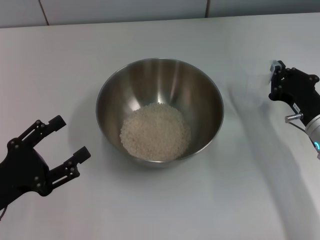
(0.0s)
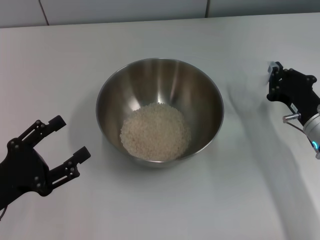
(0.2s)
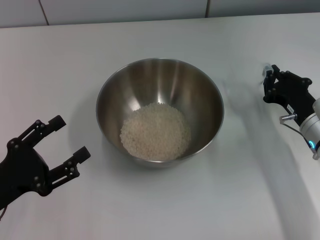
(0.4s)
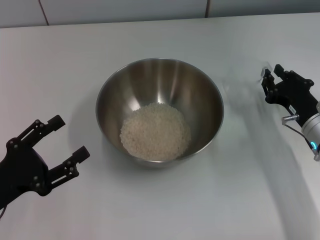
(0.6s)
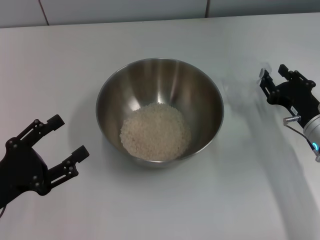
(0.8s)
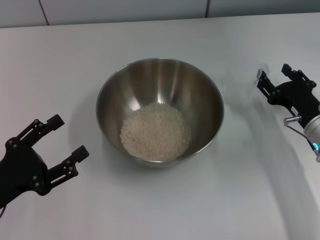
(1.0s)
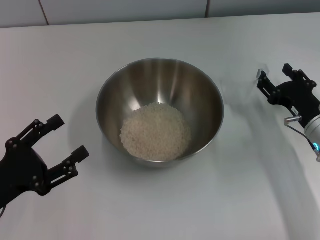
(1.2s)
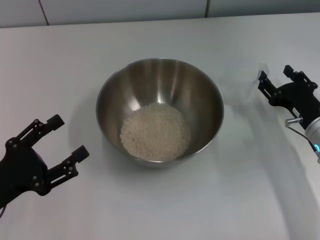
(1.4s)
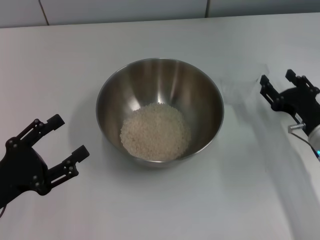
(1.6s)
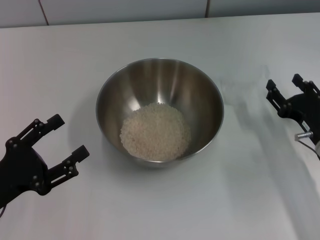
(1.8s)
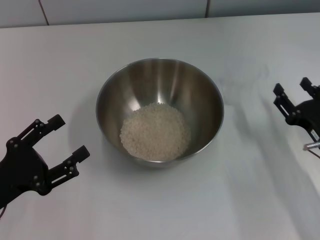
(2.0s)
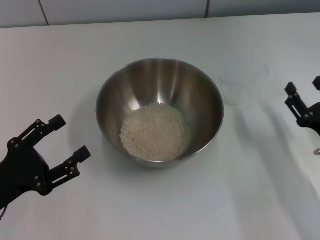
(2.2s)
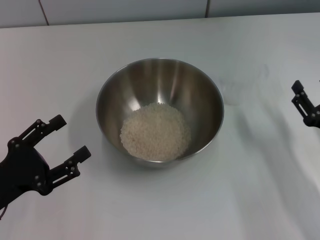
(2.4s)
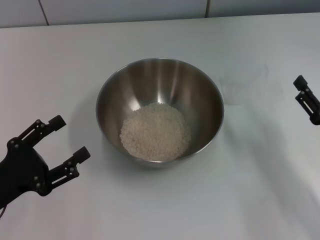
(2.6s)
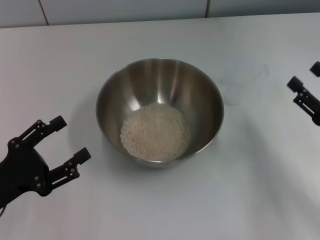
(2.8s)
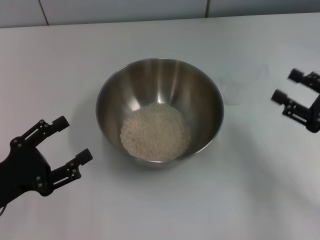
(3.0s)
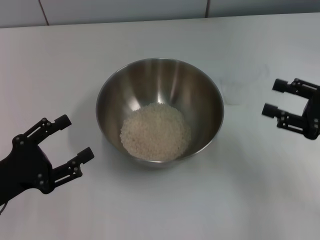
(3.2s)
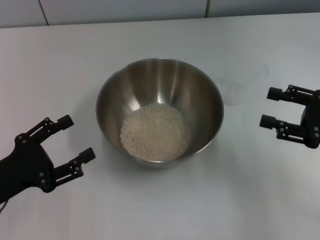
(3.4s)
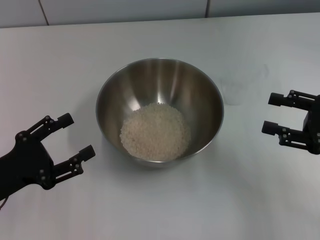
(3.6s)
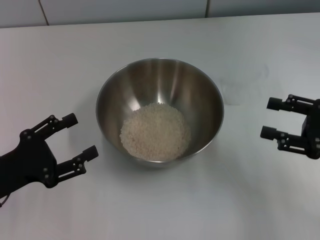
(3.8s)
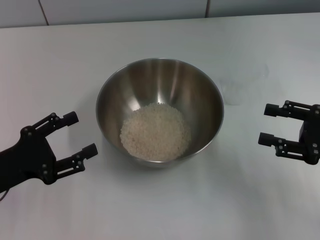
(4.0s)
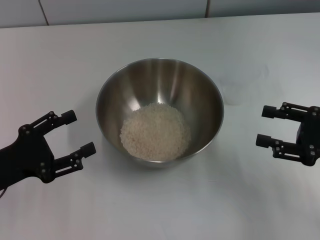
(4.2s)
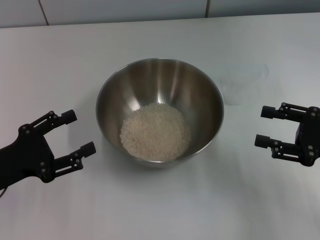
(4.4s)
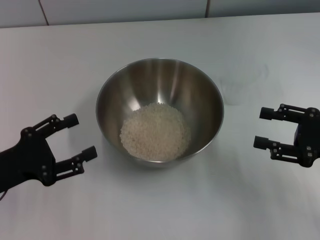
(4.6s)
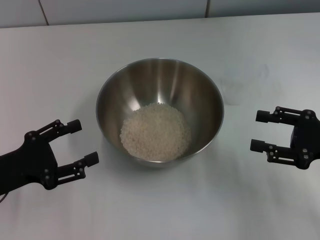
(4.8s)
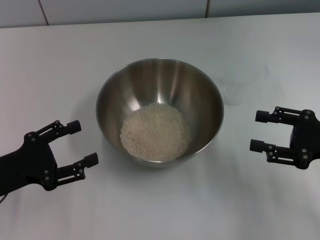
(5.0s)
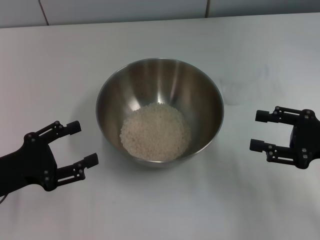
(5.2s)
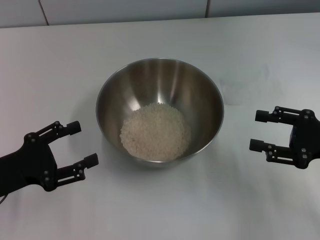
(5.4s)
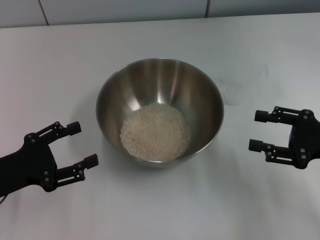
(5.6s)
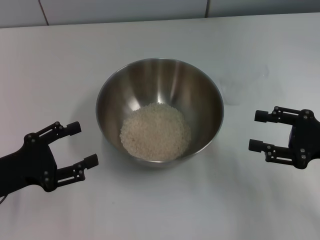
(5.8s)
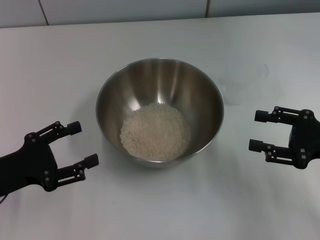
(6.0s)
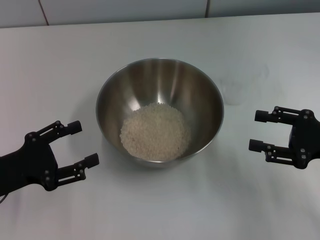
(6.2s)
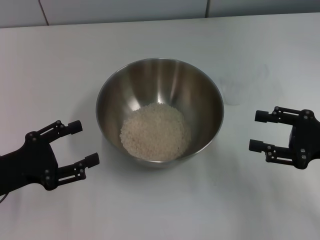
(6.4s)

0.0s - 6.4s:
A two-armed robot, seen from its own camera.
Task of the whole recording: Place the bowl in the middle of the table with one hand and pour the rice from the grain cup into it with the other hand.
0.0s - 1.6s: The right gripper opens.
1.6s - 3.2s: The right gripper moves upward and to the right, roughly 10 cm.
3.2s - 4.8s: The grippers move only a little.
4.8s - 6.4s: Both grippers stay put.

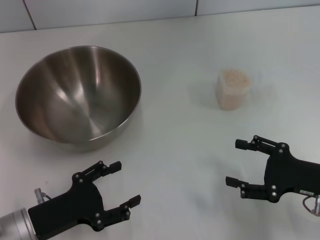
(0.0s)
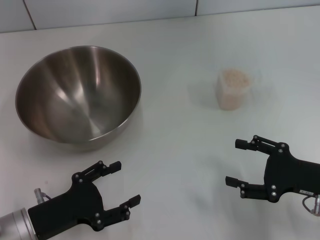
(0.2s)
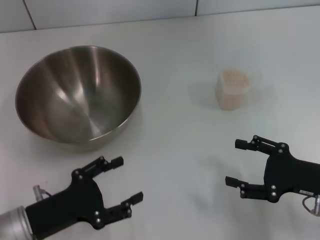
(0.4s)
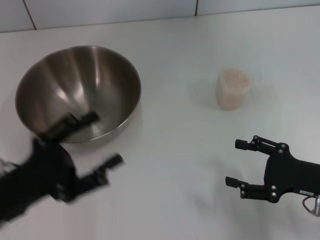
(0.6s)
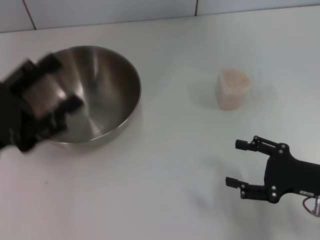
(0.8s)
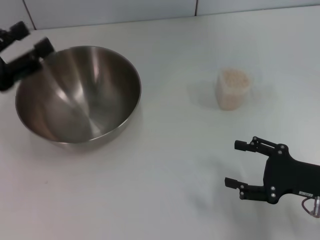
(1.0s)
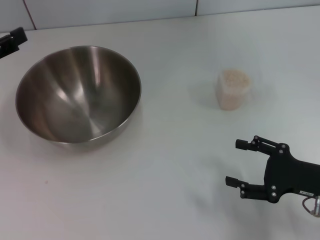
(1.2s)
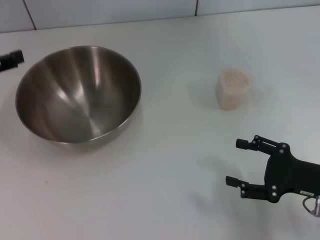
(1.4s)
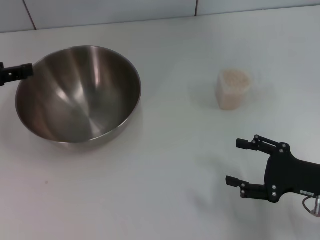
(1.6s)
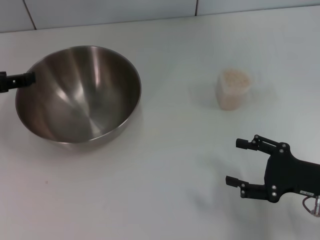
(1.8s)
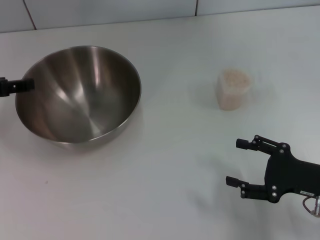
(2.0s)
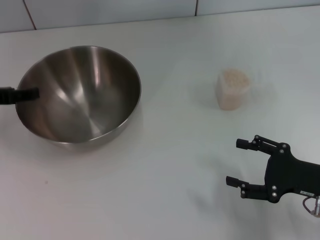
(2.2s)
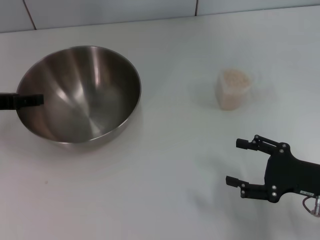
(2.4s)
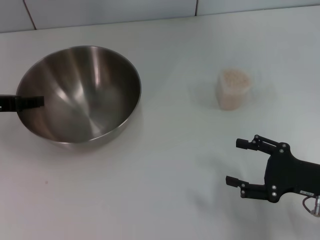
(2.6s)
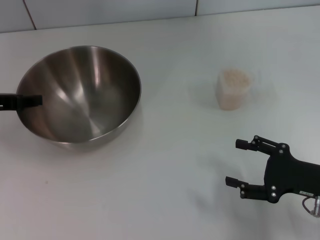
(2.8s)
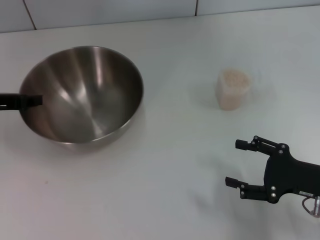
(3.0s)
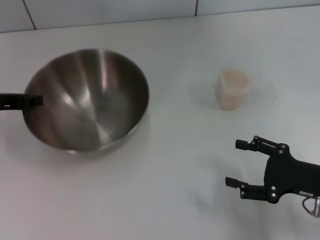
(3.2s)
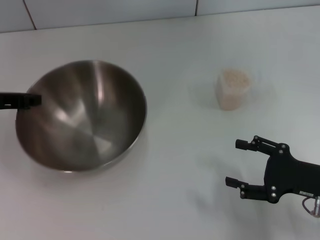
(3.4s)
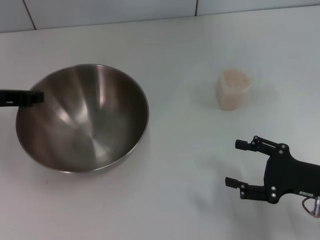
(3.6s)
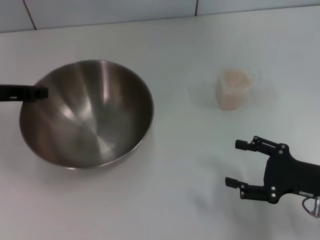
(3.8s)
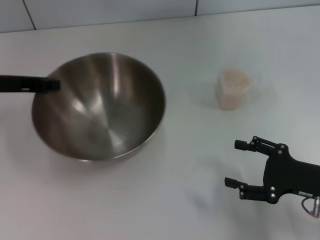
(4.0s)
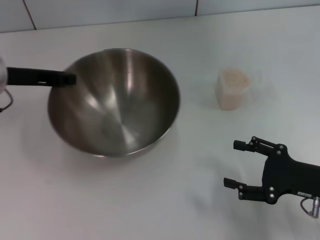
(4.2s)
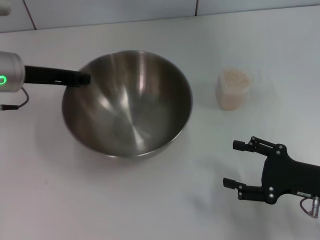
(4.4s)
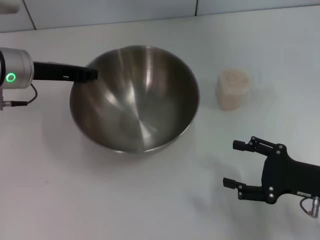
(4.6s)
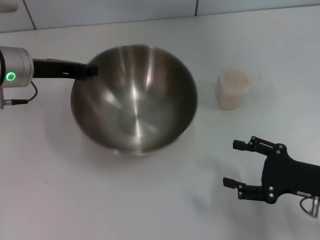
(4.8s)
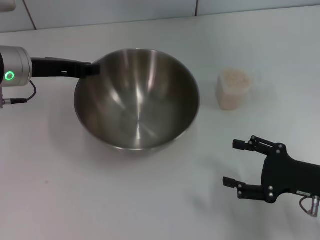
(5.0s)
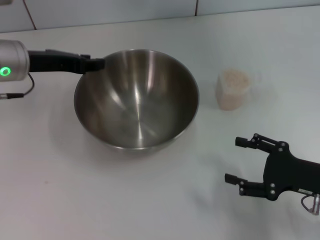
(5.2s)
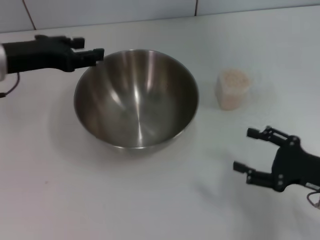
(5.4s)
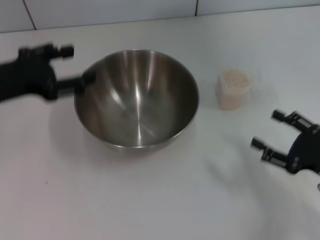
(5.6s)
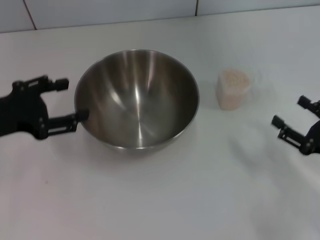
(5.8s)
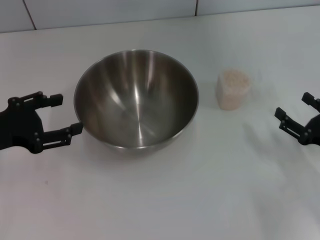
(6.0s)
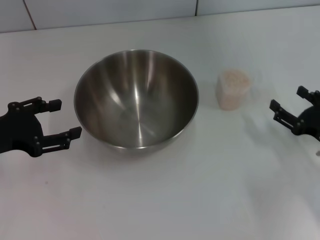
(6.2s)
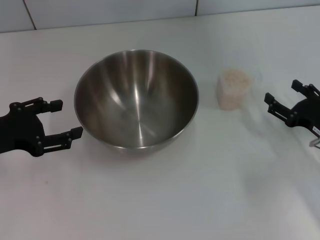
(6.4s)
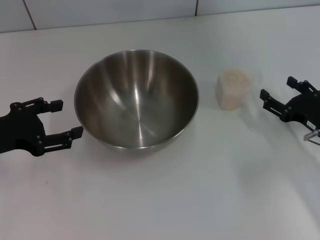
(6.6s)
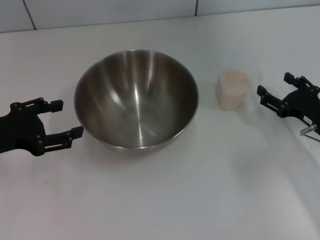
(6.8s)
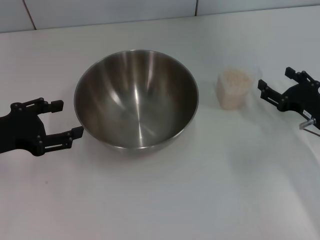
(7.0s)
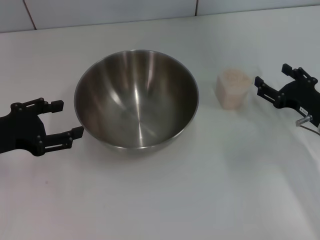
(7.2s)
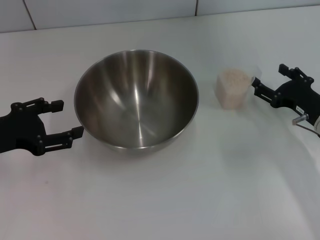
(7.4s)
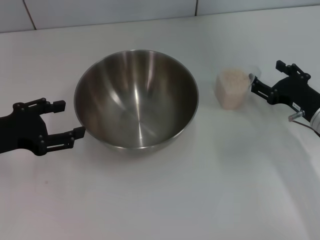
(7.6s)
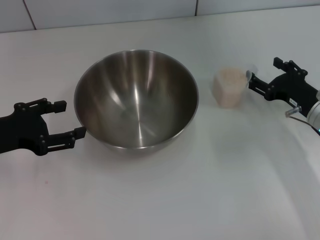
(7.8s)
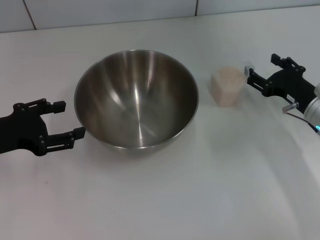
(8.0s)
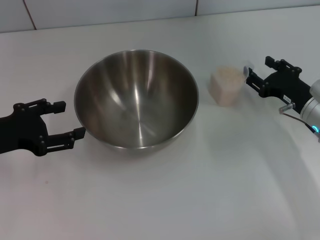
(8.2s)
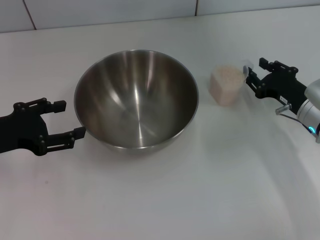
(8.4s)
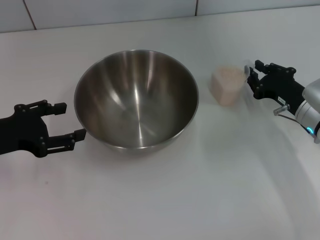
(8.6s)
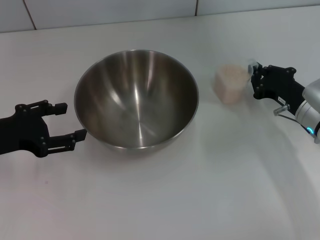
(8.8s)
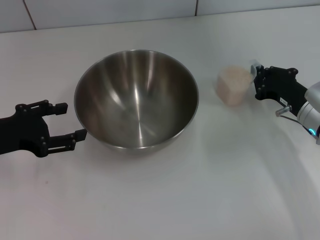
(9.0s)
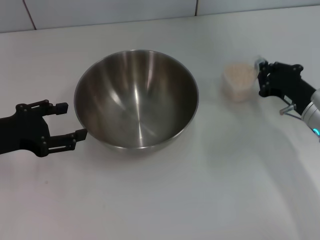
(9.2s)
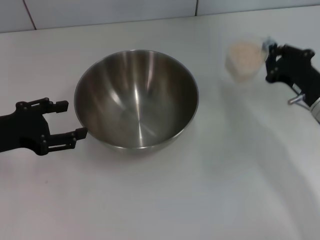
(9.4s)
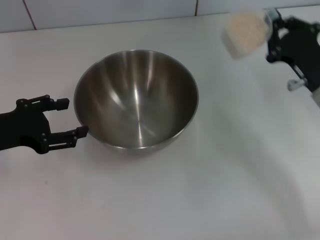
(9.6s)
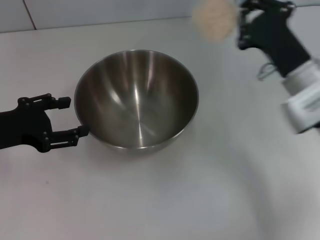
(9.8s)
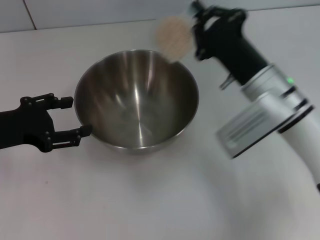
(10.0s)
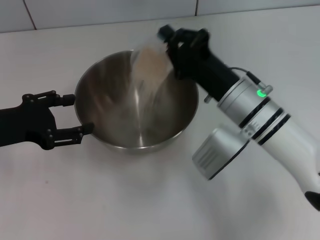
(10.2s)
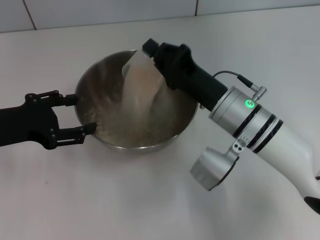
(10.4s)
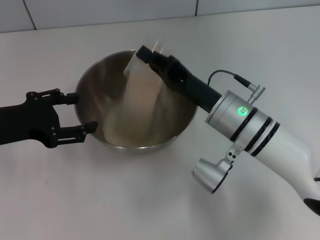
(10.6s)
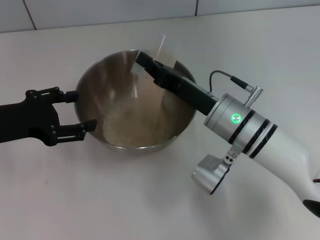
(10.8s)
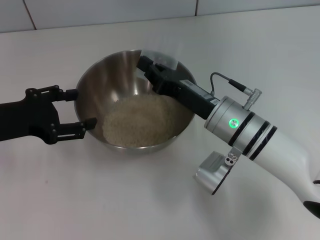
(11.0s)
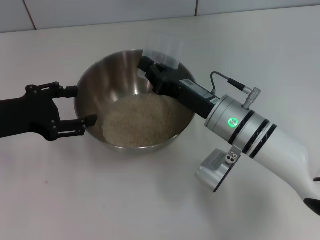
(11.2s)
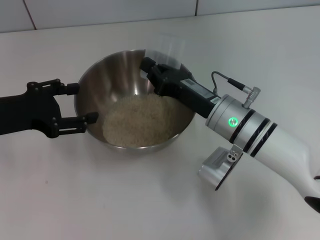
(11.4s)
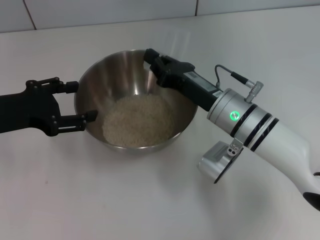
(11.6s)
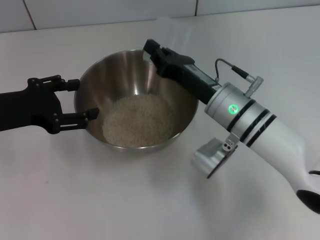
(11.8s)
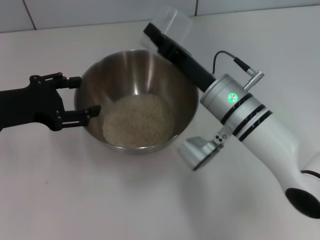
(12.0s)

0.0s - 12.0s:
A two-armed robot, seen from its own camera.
Task of the whole recording: Place the bowl in the middle of the table with one hand and pour the rice from the grain cup into it with the other hand.
Step, 0.0s - 3.4s: Pick up the bowl with the left gripper.
Step, 3.8s - 5.6s: Place the bowl in the center of view with the left gripper.
Step, 5.8s - 9.4s: Pick up the cup with rice in it with the right gripper.
0.0s - 1.6s: The left gripper moves upward, forward and to the left, about 20 cm.
1.6s - 3.0s: The left gripper ends up some 5 cm from where it was, and closes.
3.0s - 4.4s: The left gripper travels to the right by some 5 cm, and closes its fingers.
4.4s - 6.0s: The left gripper shifts approximately 15 cm backward and to the left, and opens up.
6.0s - 7.6s: The right gripper travels forward by approximately 10 cm.
7.6s - 9.0s: The right gripper closes up.
9.0s - 10.4s: The right gripper shifts some 15 cm to the left.

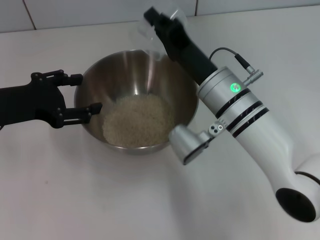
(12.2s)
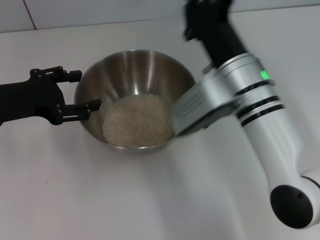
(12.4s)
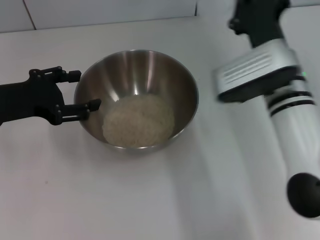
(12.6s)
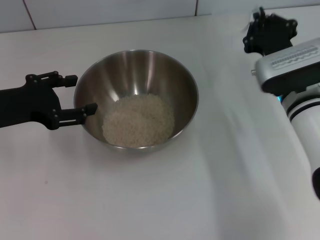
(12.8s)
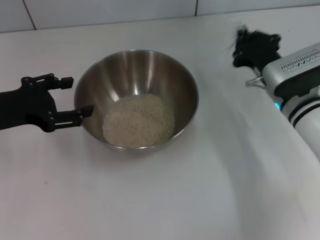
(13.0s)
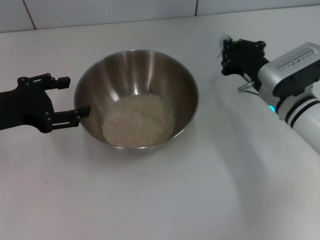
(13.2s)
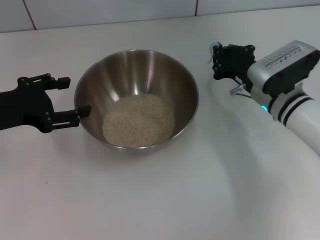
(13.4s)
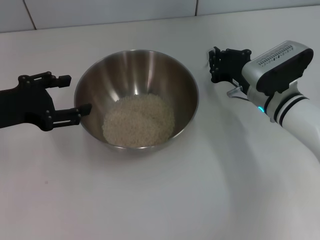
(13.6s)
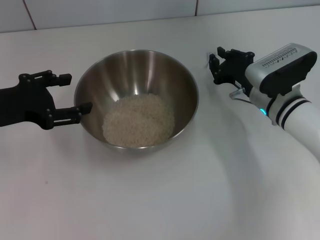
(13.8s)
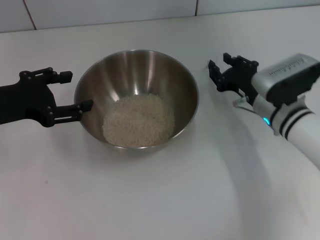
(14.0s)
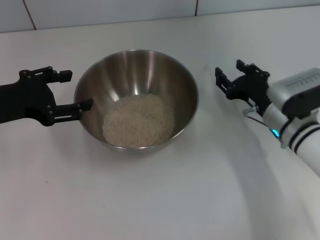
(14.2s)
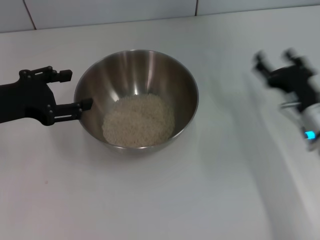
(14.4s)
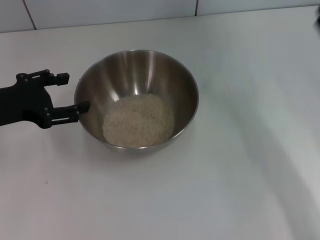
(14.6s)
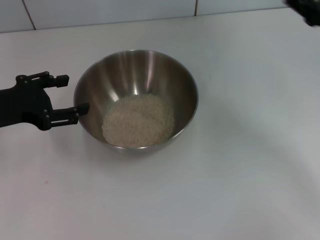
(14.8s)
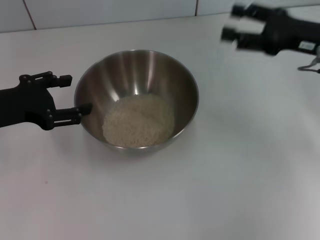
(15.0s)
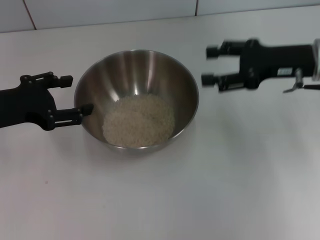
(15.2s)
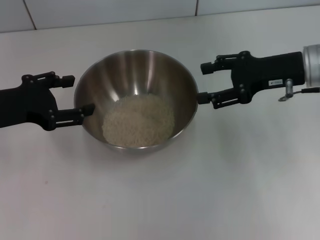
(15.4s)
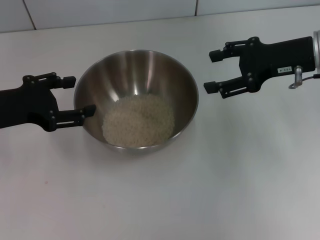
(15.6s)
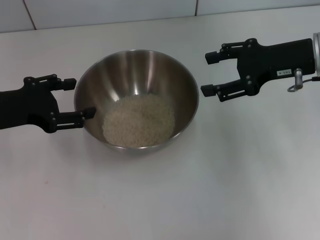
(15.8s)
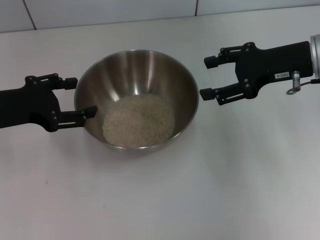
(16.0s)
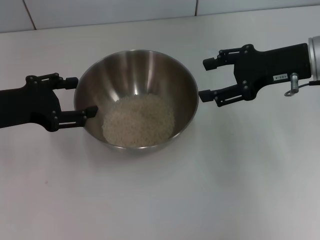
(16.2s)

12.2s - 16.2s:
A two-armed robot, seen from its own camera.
Task of the whole recording: Place the bowl in the middle of the table with one hand and pour the rice from the grain cup into it with the other hand.
Step, 12.6s - 14.4s: Place the cup on the table with the right gripper.
12.2s - 13.6s: The right gripper moves to the right and downward, approximately 10 cm.
13.6s - 14.8s: The right gripper is displaced to the right and upward by approximately 15 cm, and opens its fingers.
14.8s - 16.2s: The right gripper travels to the left by some 5 cm.
